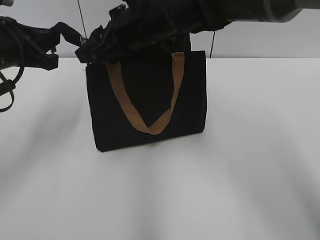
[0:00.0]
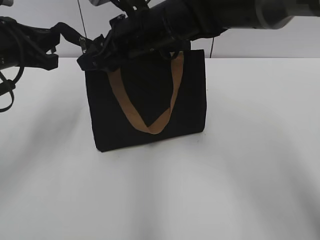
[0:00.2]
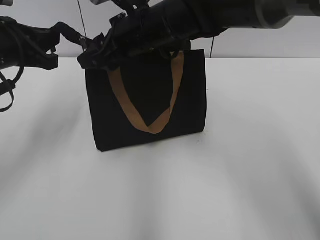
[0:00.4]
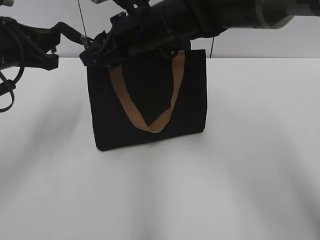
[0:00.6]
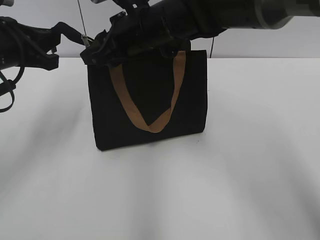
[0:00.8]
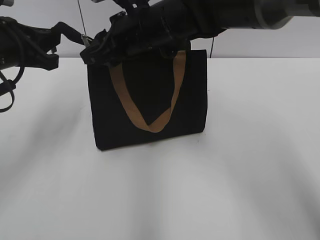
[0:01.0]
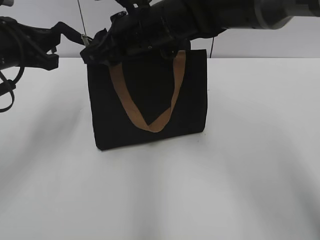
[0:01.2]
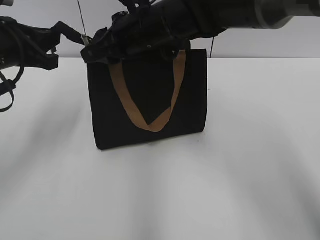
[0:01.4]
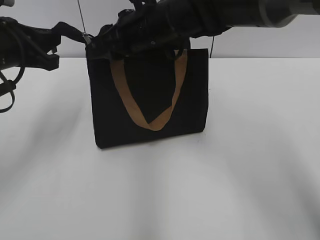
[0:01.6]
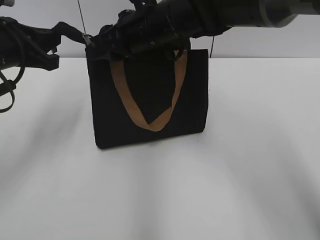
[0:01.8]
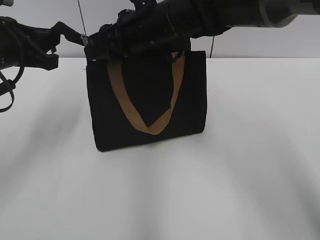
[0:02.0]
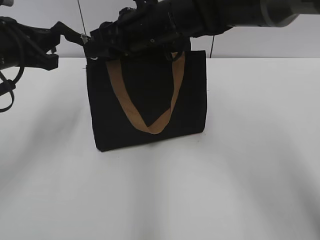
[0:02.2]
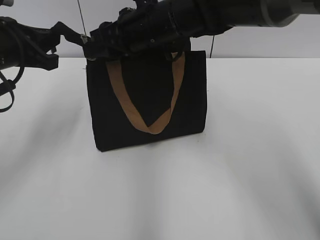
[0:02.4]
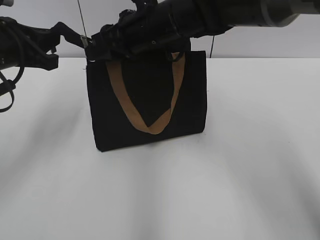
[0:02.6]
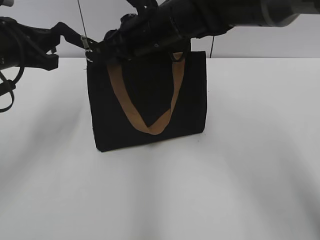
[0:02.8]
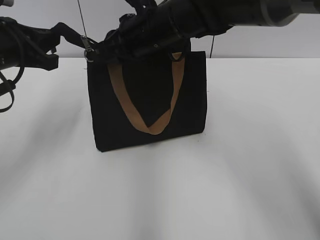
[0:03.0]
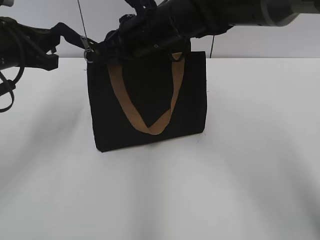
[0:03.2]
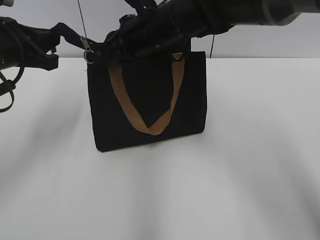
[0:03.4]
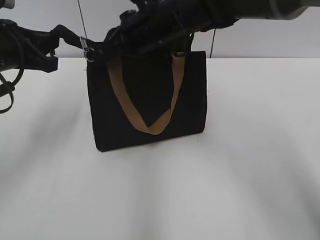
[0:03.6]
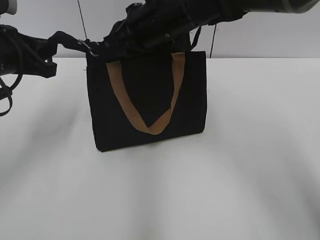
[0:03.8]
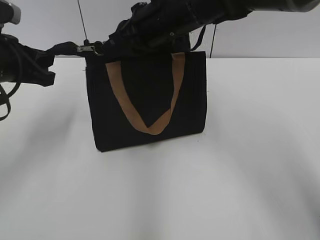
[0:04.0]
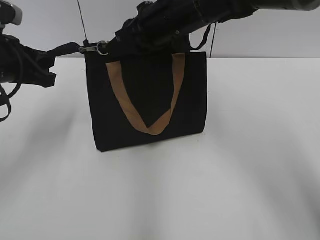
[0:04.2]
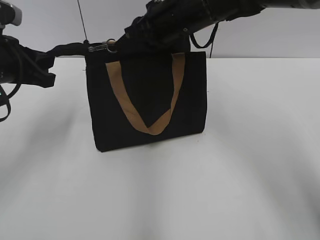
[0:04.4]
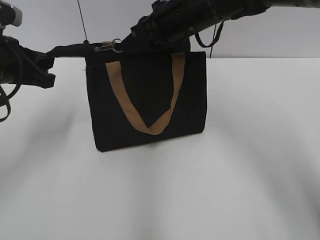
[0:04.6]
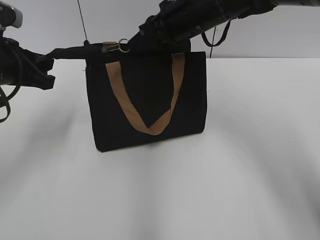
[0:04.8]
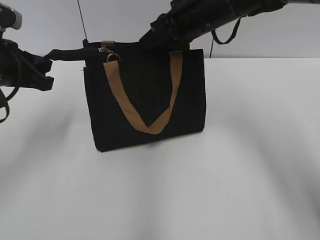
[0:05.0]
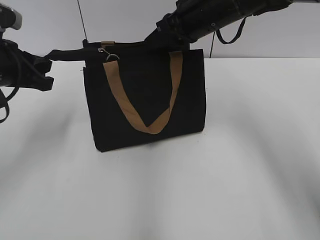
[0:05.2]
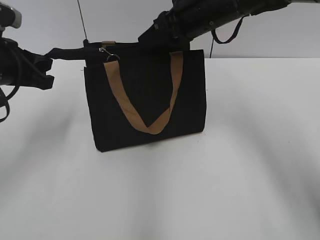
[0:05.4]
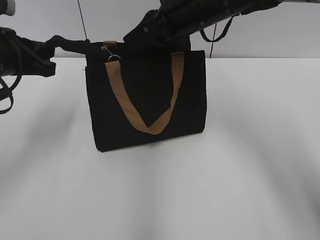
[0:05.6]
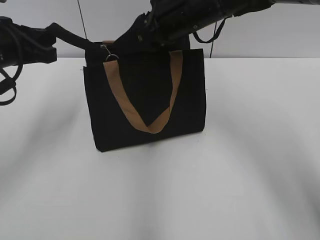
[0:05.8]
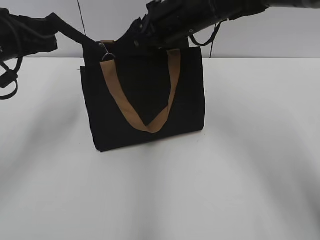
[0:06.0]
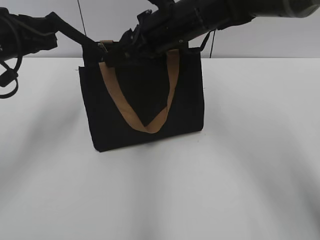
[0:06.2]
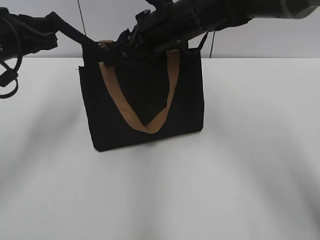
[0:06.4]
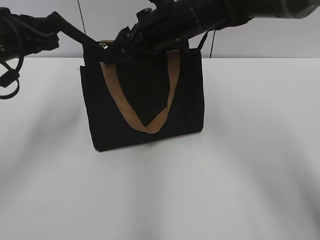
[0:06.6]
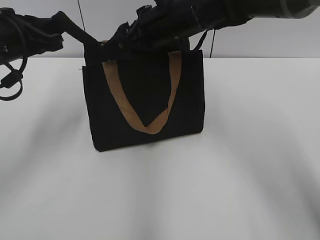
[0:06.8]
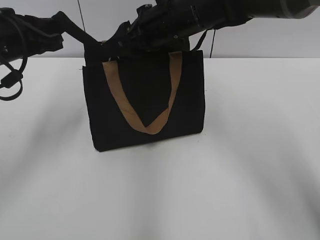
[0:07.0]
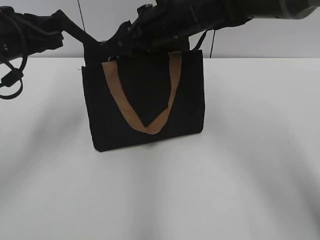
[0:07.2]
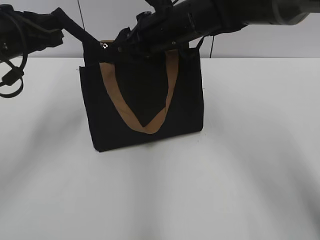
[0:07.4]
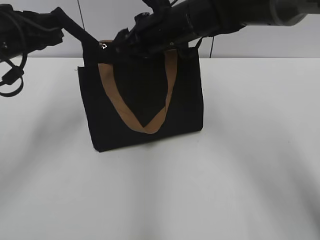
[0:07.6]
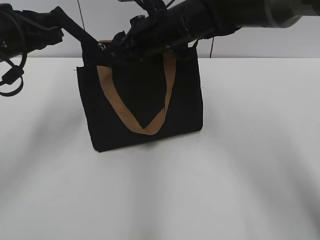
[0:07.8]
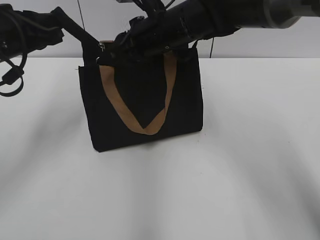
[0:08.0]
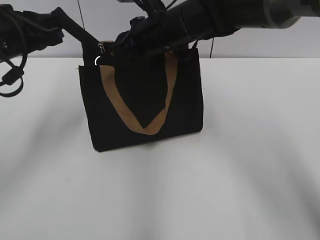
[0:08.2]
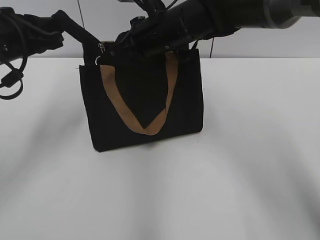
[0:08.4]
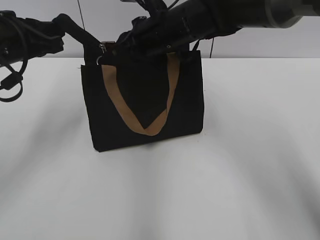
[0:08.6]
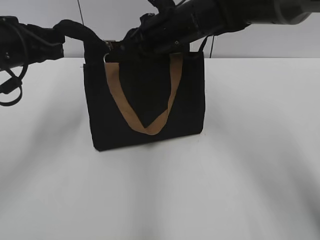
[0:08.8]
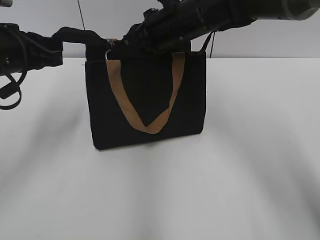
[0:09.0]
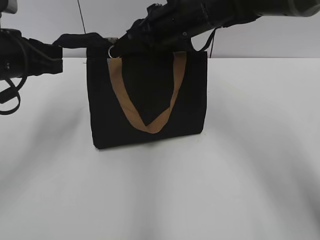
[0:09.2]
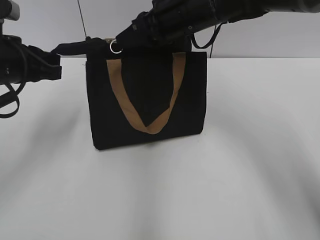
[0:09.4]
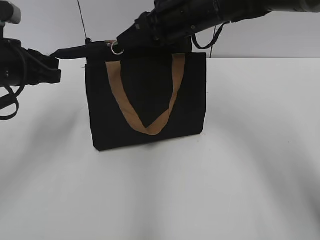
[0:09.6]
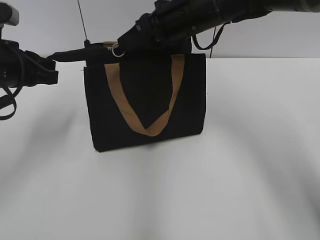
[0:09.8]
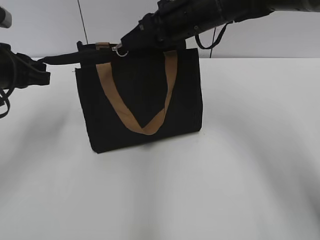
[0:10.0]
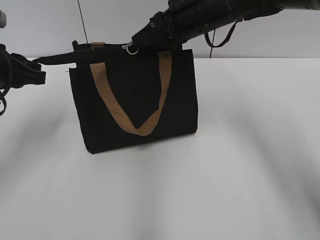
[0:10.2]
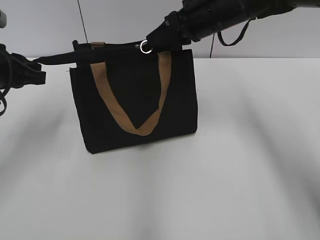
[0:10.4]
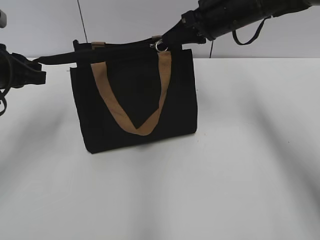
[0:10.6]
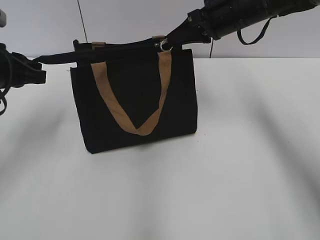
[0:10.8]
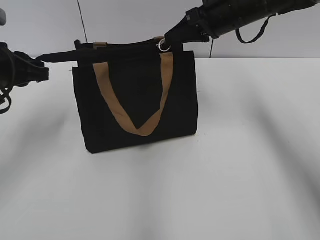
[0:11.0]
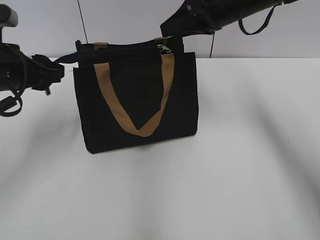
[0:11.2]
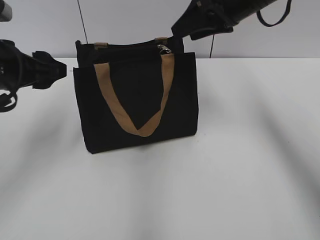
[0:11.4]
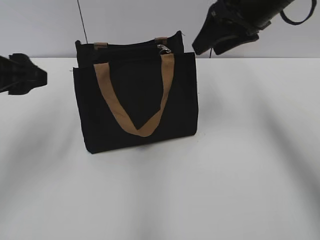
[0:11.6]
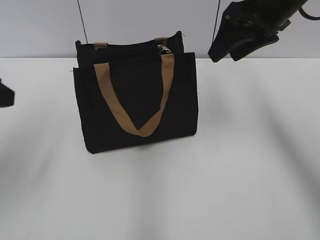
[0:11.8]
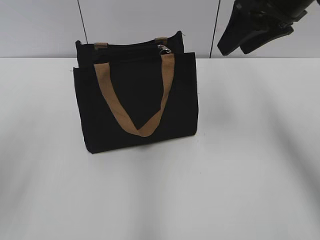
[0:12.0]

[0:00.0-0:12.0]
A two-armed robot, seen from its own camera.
Step, 0.0 to 11.0 s: Zip up the bag with your right hand.
0.0 to 1.6 s: The grippers move only a little.
1.6 to 3.0 s: The right gripper closes.
3.0 to 4.4 s: The grippers move only a little.
4.4 to 6.0 s: The right gripper opens its fingers.
6.0 to 7.6 s: The grippers make only small movements.
7.6 to 9.0 s: The right gripper closes its fingers.
9.0 to 10.4 s: The right gripper is displaced to the right by approximately 5 cm.
10.4 to 12.0 s: The right gripper travels upward, to the right and backward by roughly 10 cm, and opens up. The left gripper moves backward and upward, about 15 cm, and opens.

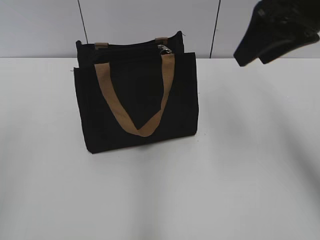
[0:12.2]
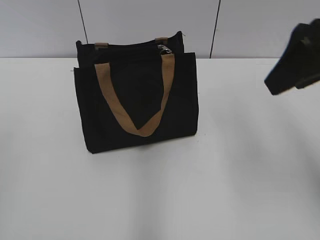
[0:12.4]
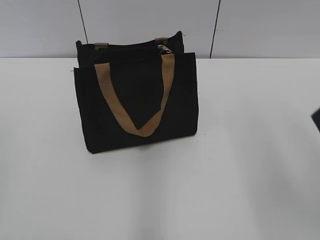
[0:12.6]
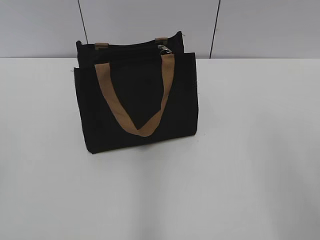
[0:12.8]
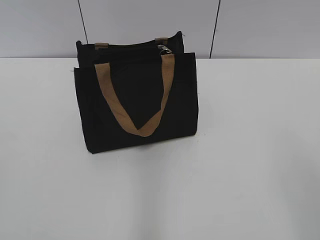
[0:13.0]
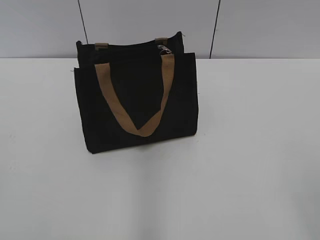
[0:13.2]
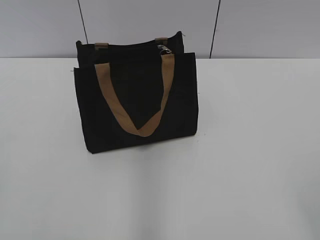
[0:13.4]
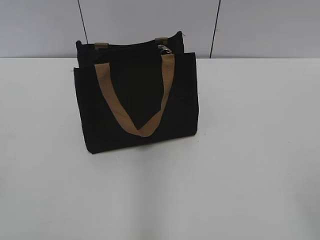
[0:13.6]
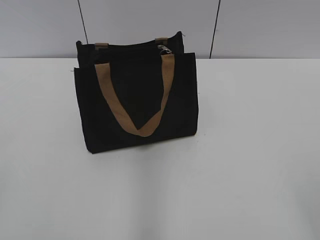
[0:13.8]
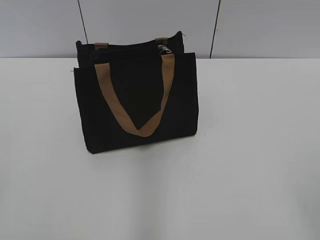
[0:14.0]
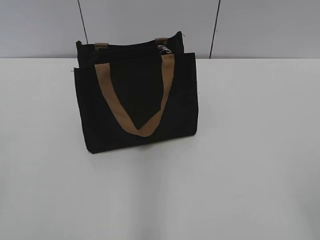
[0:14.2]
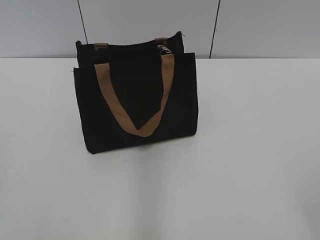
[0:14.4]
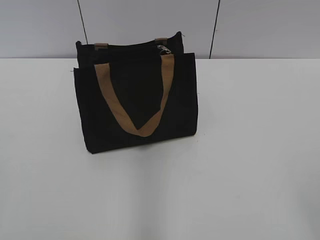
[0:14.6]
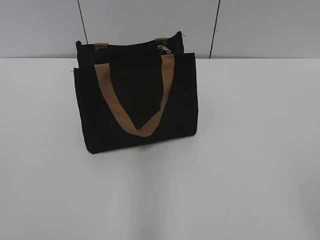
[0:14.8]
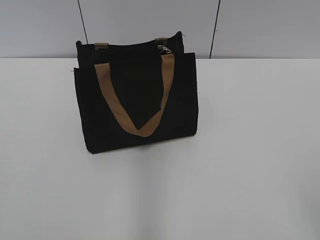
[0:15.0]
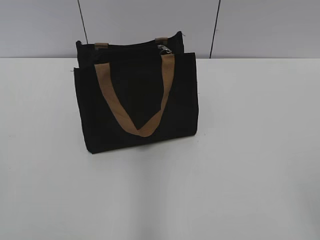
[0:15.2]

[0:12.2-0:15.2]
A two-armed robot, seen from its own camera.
12.2 to 13.8 s: The right gripper shifts roughly 30 cm backward.

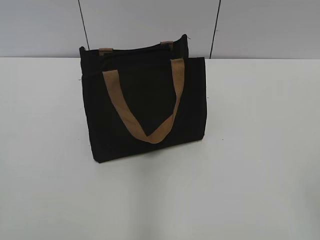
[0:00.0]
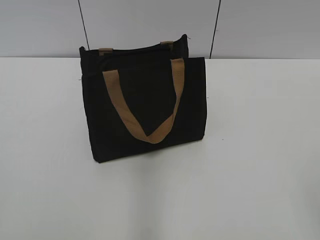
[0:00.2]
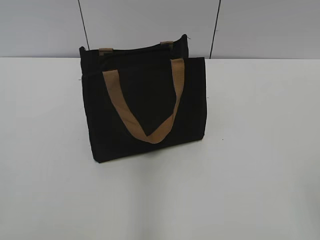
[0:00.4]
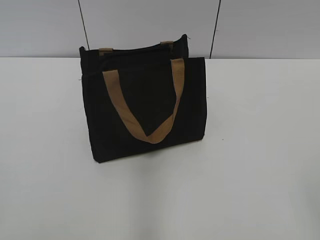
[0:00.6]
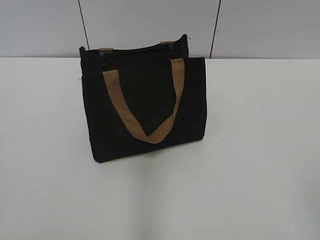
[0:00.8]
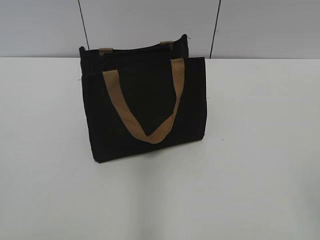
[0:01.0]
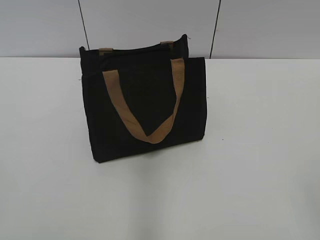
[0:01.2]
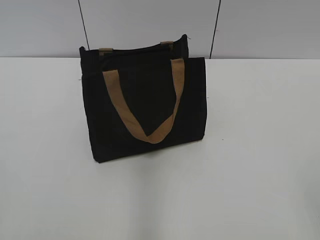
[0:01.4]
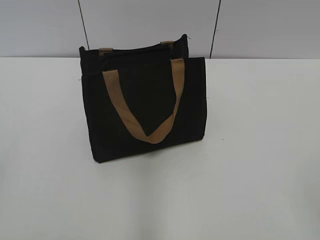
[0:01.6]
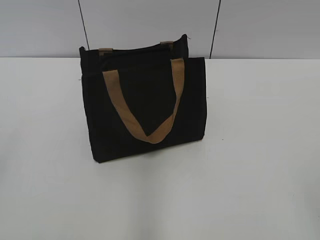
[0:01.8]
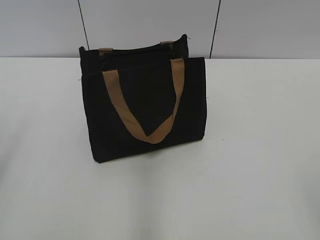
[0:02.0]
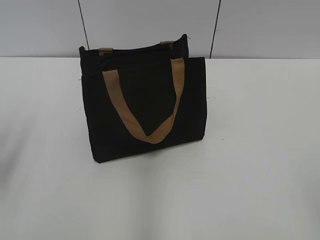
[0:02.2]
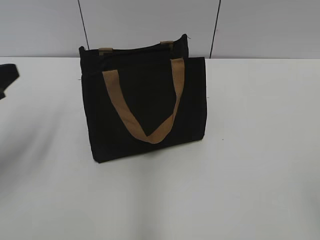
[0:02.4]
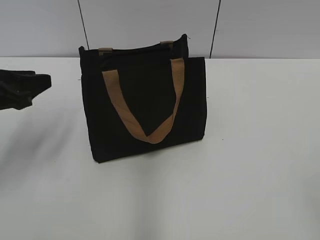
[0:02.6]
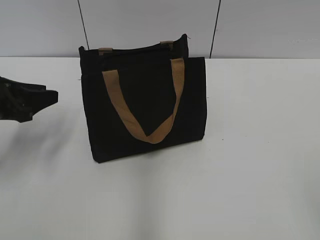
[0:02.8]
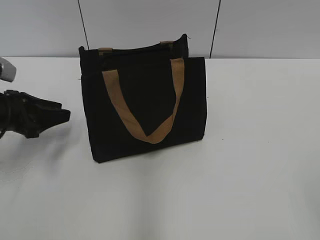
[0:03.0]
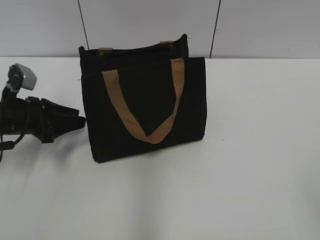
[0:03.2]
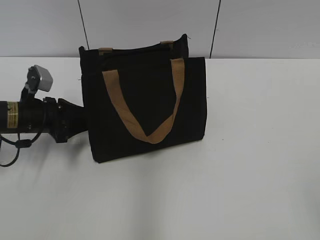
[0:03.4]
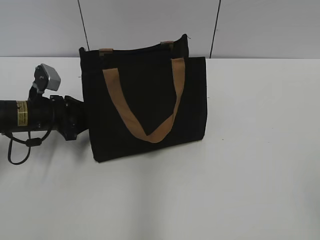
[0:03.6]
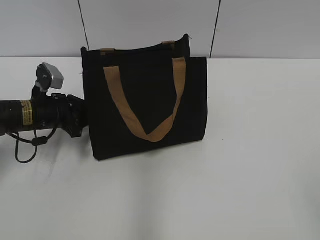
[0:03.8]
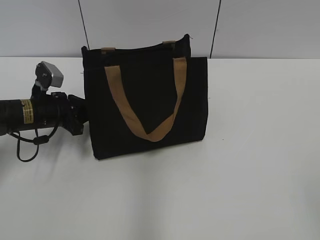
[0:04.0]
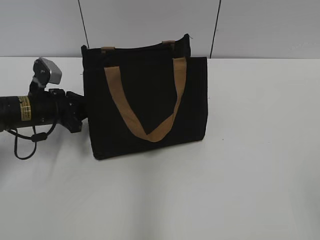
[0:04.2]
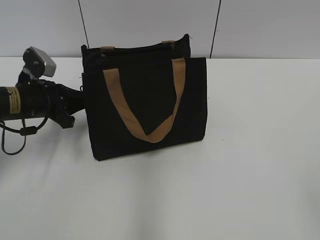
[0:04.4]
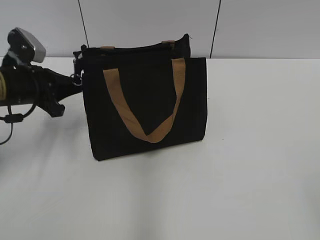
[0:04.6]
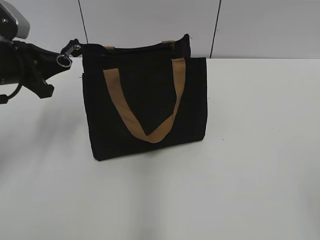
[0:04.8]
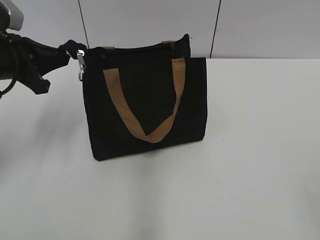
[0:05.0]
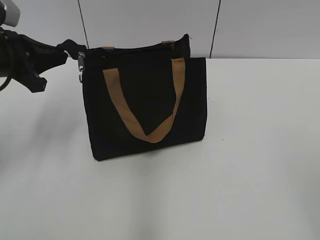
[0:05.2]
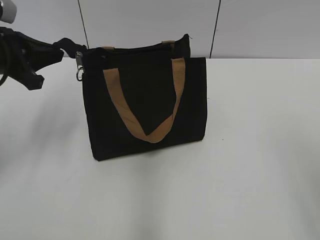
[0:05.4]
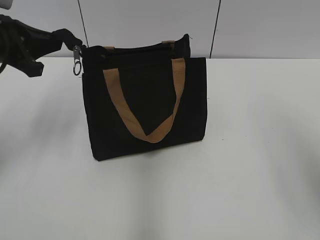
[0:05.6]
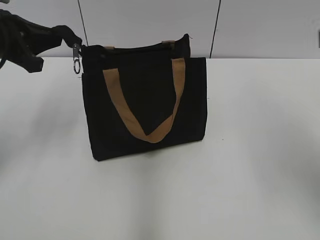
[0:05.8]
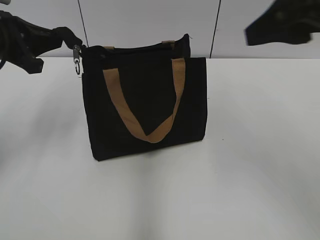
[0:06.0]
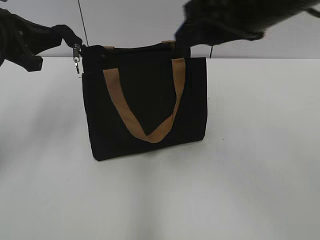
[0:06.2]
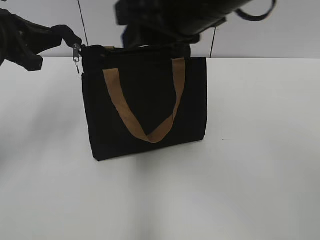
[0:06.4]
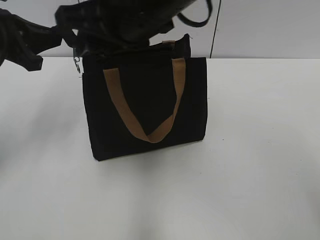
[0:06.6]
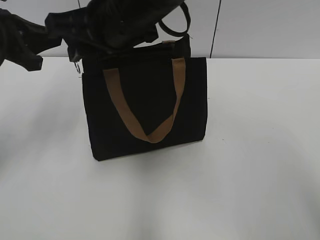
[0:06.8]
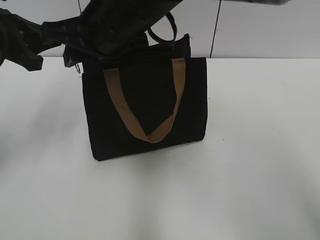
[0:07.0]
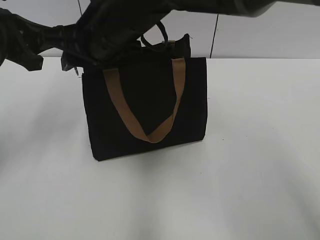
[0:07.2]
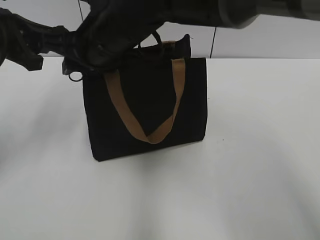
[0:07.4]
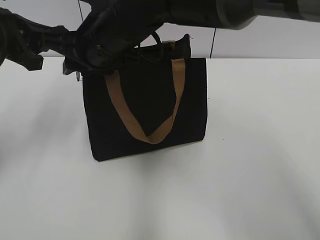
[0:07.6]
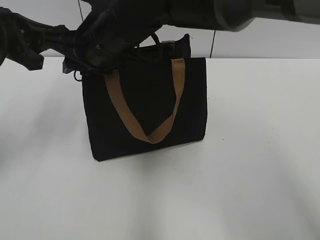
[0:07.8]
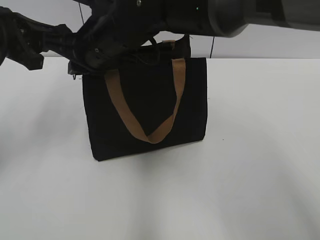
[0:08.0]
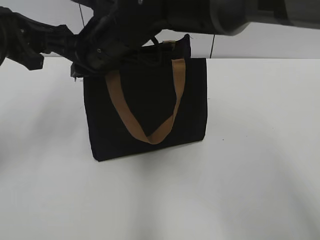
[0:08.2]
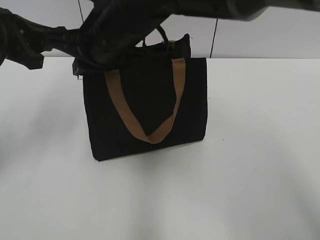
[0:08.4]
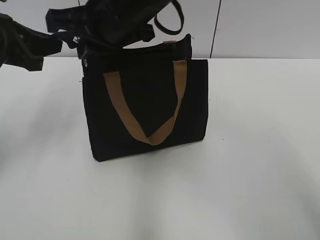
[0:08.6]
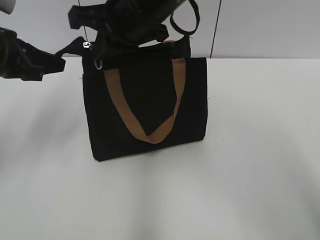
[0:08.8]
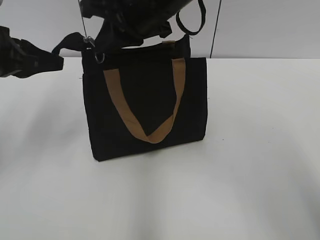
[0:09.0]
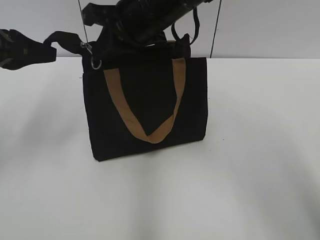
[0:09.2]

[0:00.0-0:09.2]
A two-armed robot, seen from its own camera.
1.6 to 3.0 s: The left gripper goes approximately 35 cm forward and downward, and closes up.
3.0 to 4.6 s: The left gripper closes up.
4.6 to 6.2 s: The left gripper heads upward, covering roughly 10 cm. Meanwhile the right gripper heads forward and to the left, covering about 30 cm.
6.2 to 7.6 s: The right gripper travels to the left, downward and forward by approximately 20 cm.
7.6 to 9.2 s: The right gripper heads to the right, covering about 5 cm, and closes.
